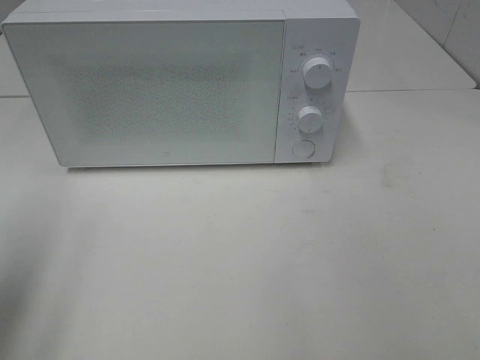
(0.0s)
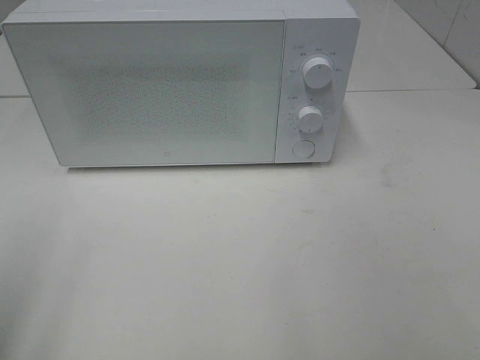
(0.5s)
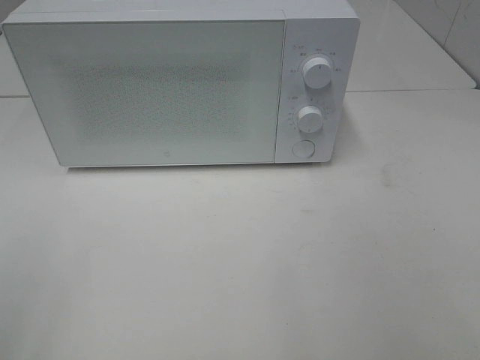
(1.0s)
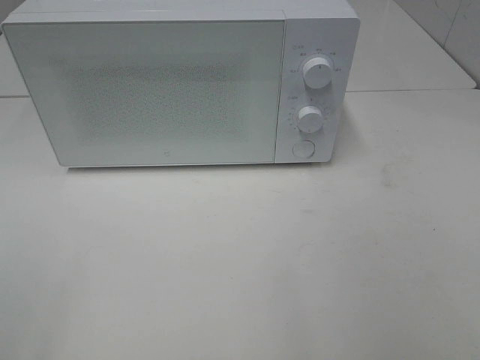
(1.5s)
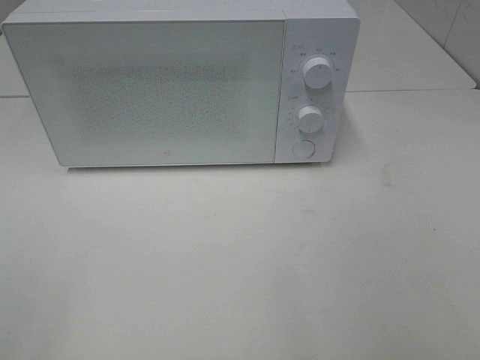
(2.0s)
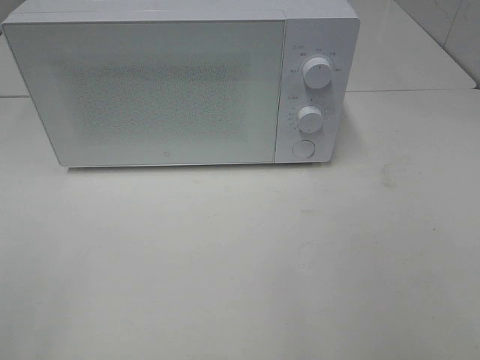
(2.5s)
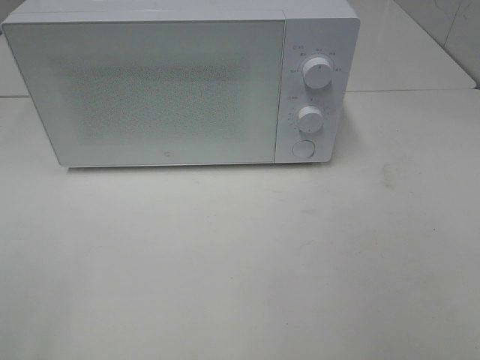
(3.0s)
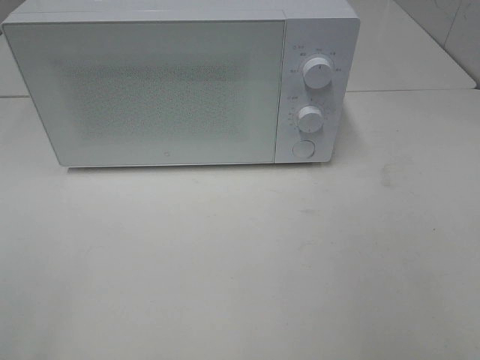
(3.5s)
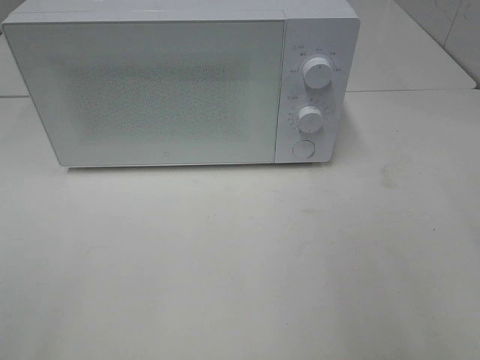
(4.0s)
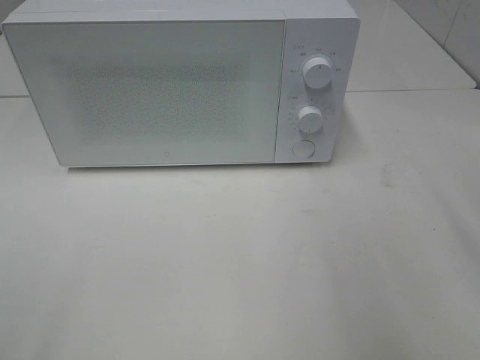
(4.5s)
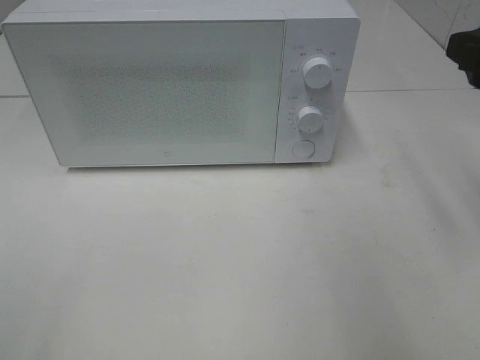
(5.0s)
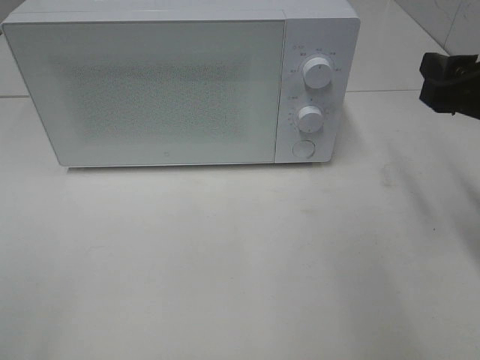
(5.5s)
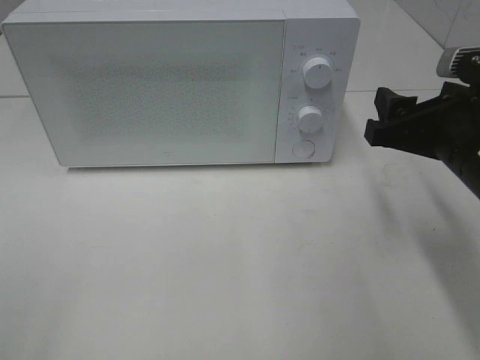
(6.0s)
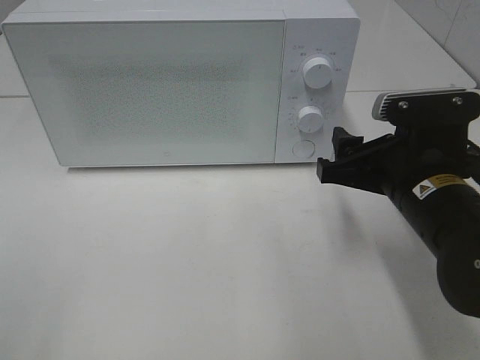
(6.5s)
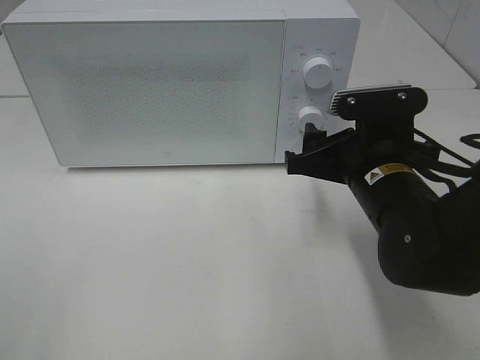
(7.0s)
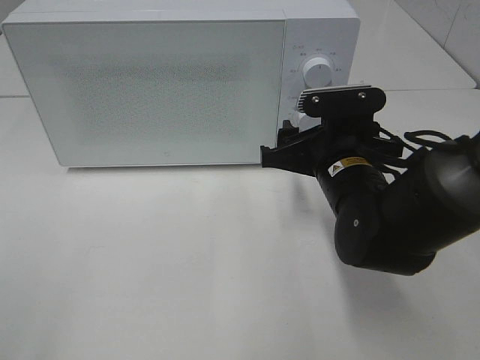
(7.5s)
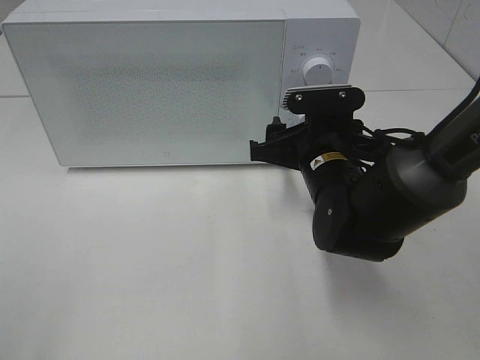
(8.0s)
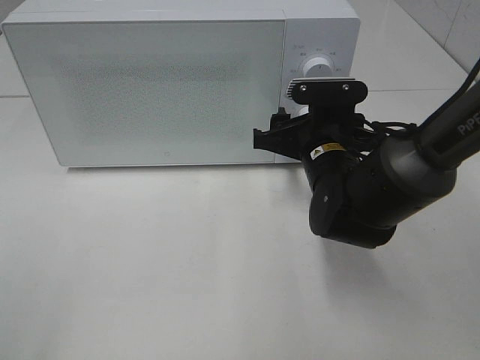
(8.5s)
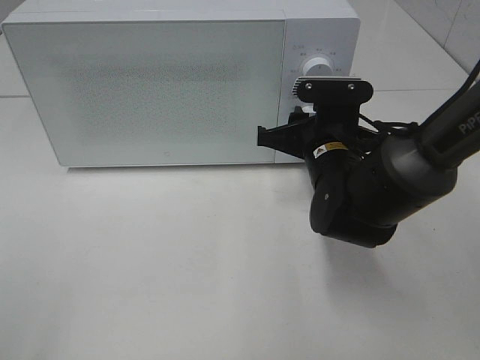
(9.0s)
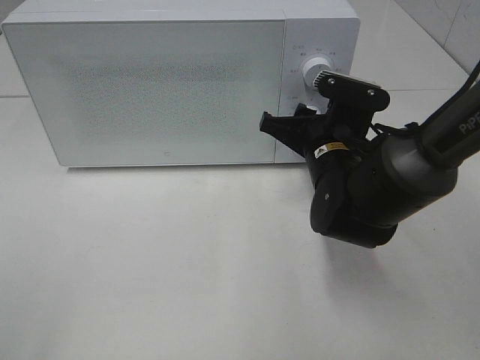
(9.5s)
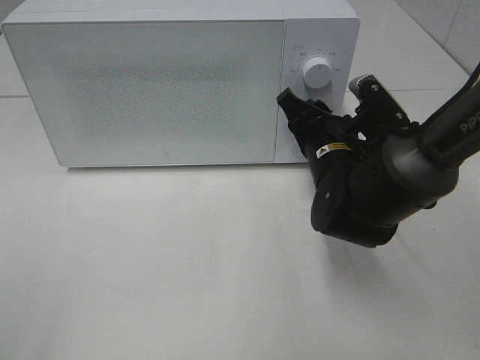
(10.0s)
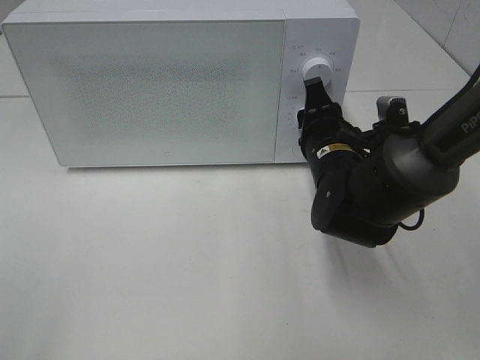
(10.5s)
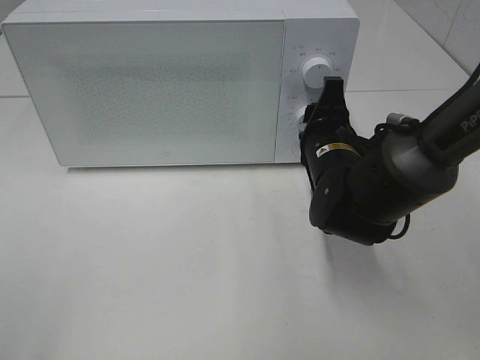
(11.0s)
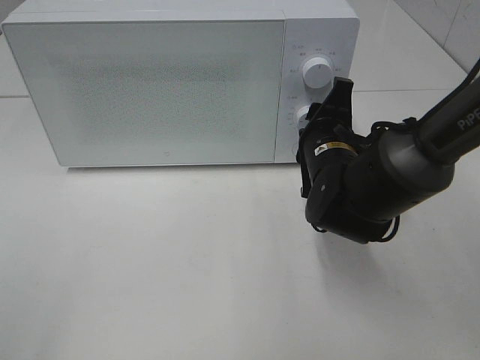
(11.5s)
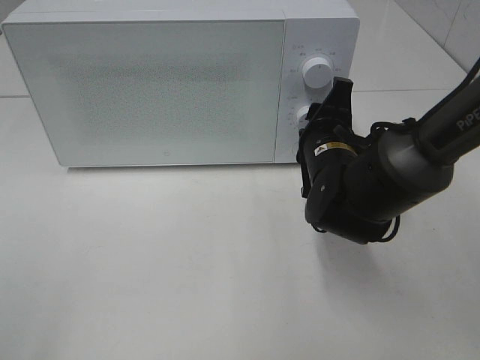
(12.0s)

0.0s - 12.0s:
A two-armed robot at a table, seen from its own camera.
Task of the whole recording: Heat the burger.
0.0s - 2.0s: The left gripper shifts approximately 15 cm backward.
4.0s - 6.0s: The right gripper heads downward, forward and to the left, covering approximately 20 cm.
6.0s - 8.0s: The right gripper travels to the left, downward and forward by about 15 cm.
8.0s - 10.0s: The right gripper closes its fingers.

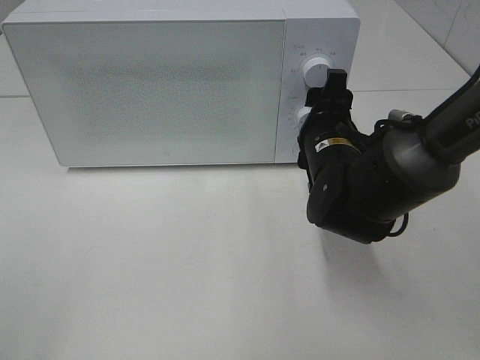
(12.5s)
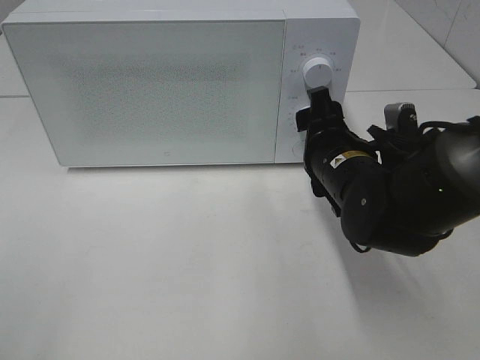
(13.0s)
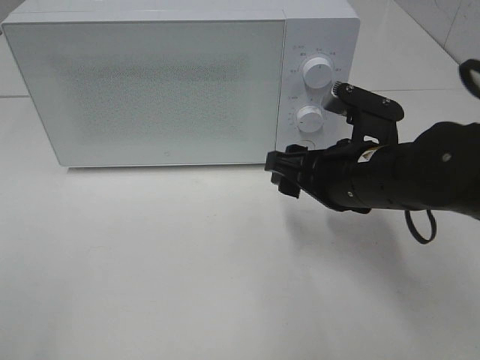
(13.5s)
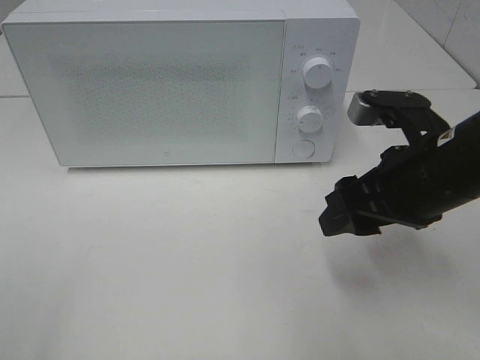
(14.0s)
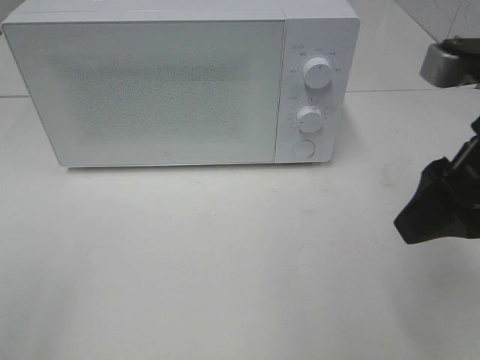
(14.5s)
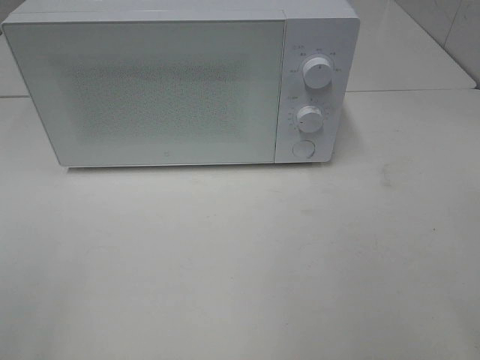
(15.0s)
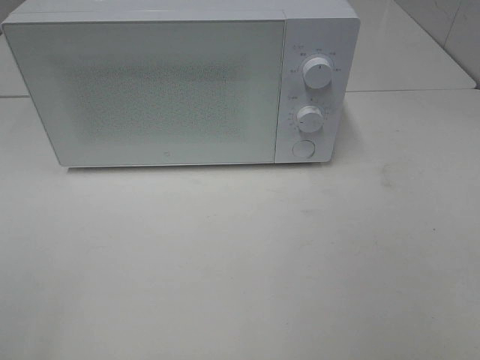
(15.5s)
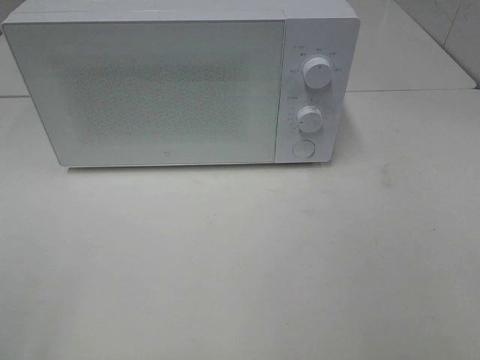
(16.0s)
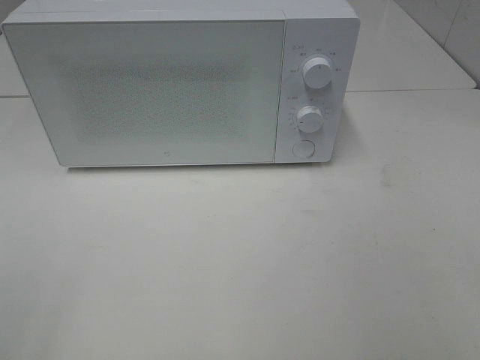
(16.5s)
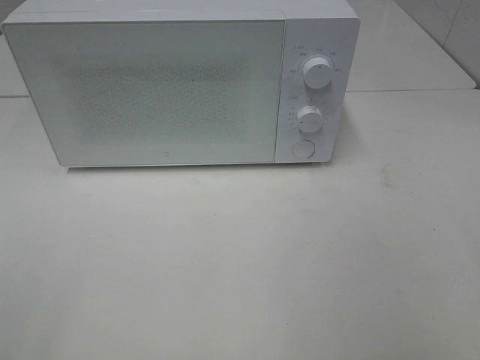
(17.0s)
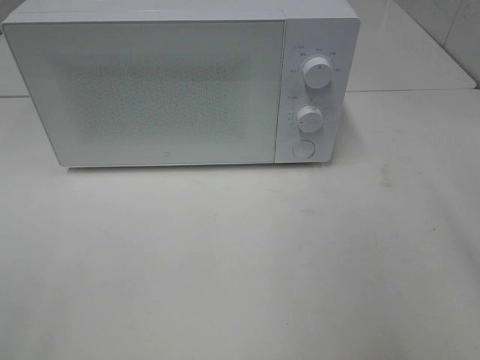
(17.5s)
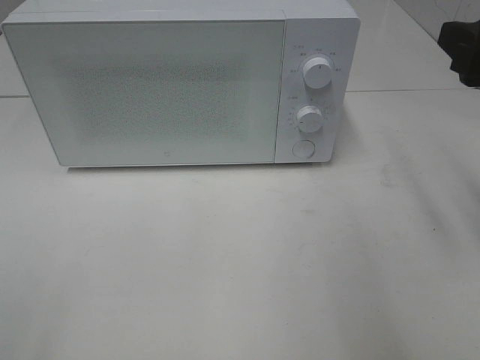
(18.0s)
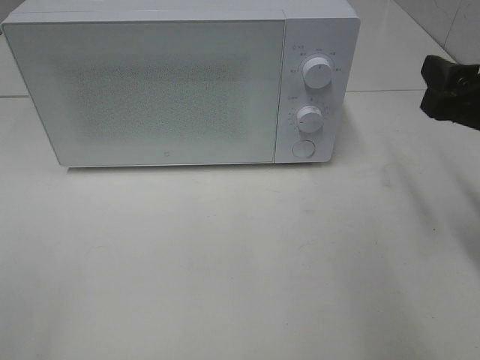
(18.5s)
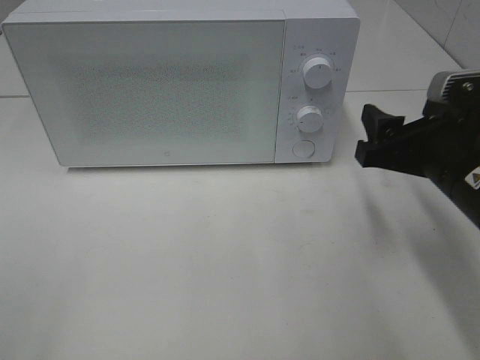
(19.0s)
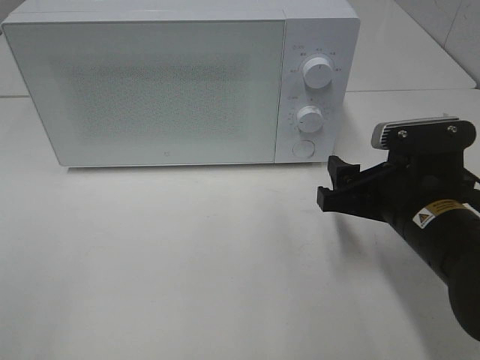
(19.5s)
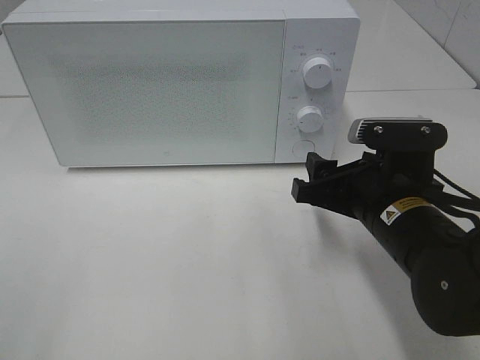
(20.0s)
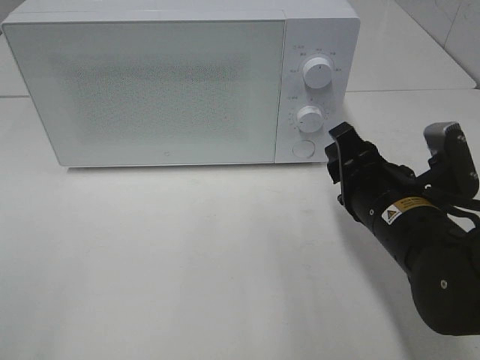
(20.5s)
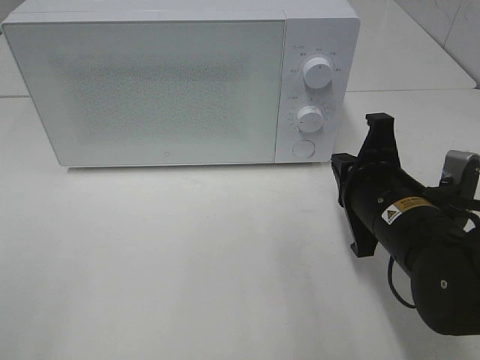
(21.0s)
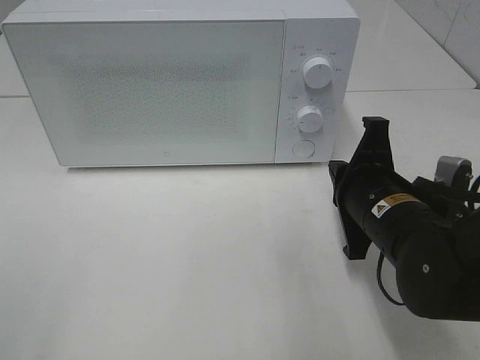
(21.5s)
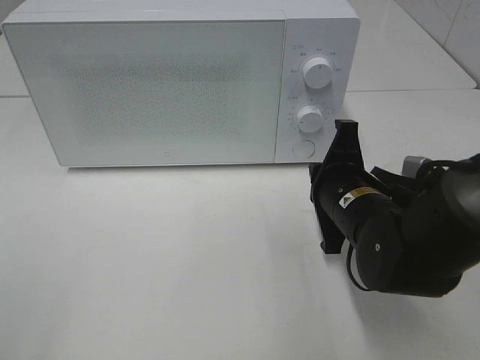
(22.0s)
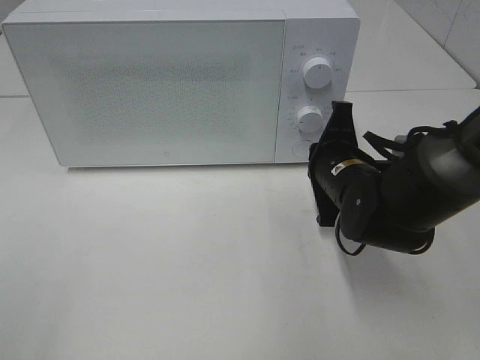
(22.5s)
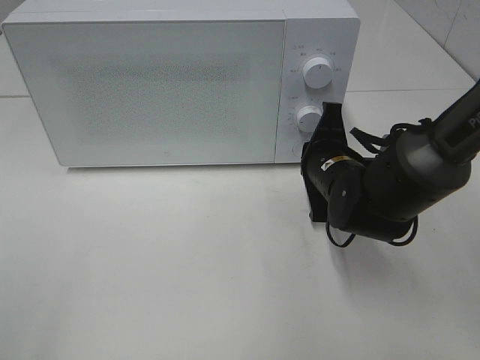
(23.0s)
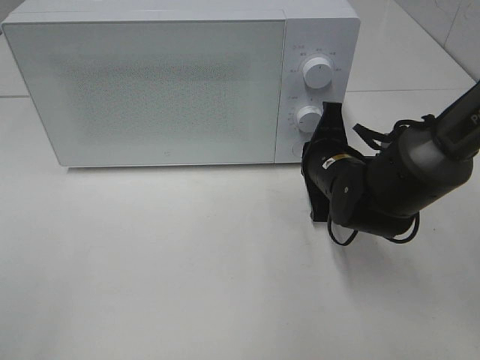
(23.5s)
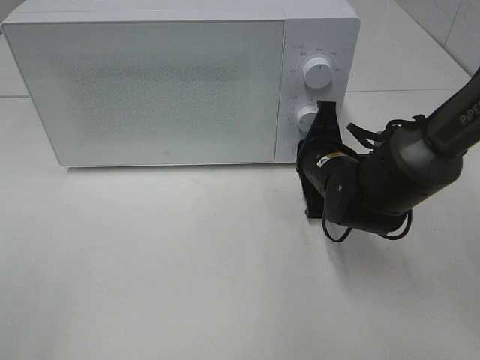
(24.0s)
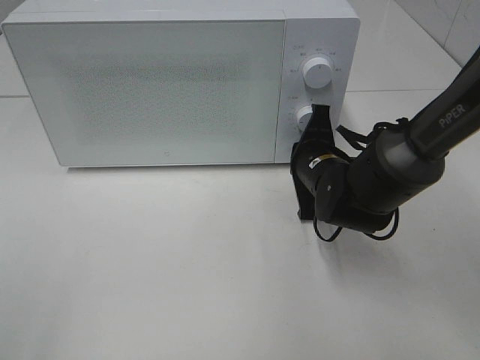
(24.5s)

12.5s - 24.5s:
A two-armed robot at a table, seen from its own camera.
Task of the whole recording: Heat the burger.
12.5s - 14.5s: The right gripper shifts some 25 cm upward, backward and to the right.
14.5s - 16.5s: The right gripper moves backward and to the right, some 20 cm.
16.5s - 18.5s: The right gripper travels forward by roughly 25 cm.
18.5s - 20.5s: The right gripper shifts roughly 15 cm to the left and downward.
20.5s - 22.5s: The right gripper travels forward by approximately 10 cm, and closes.
22.5s - 24.5s: The grippers move only a little.

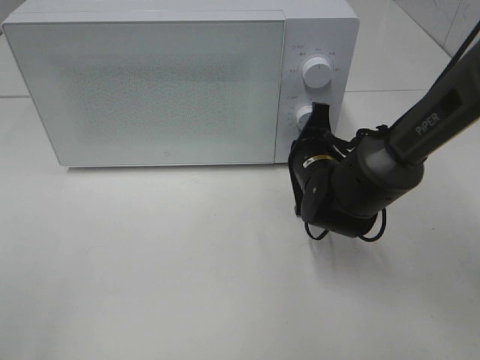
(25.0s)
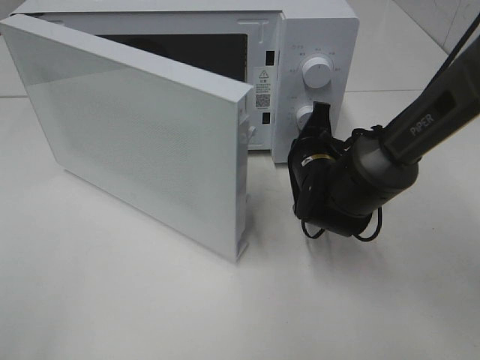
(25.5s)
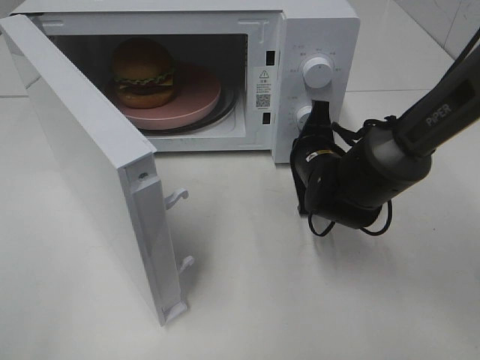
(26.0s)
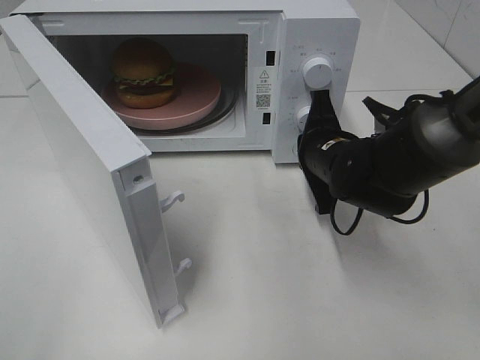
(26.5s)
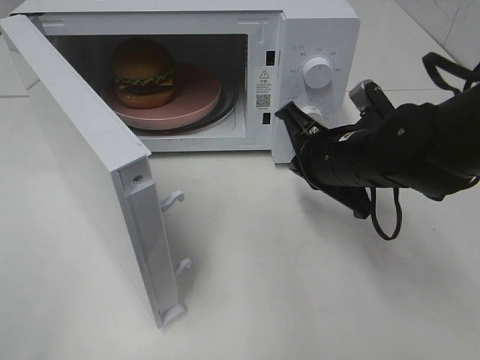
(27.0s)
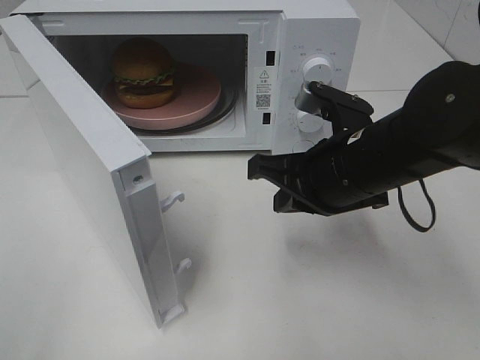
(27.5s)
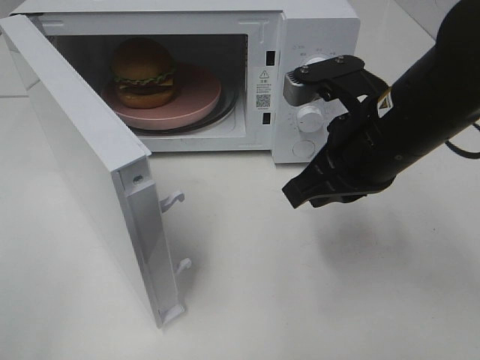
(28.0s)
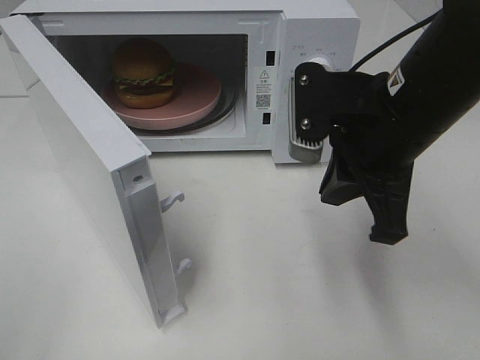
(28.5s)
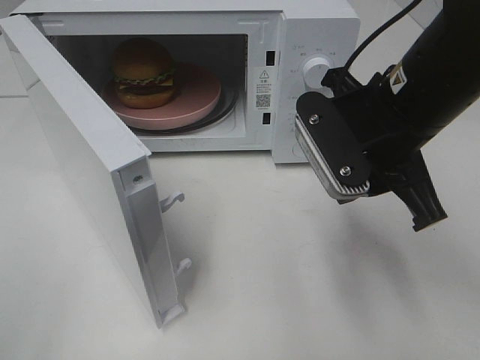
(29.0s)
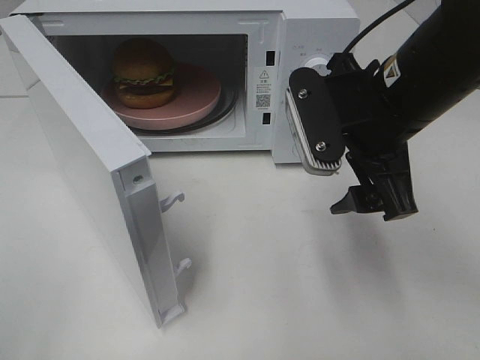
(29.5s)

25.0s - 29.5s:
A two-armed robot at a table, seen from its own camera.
Task of the whole recording: Heat the burger.
25.0s - 27.0s: The right gripper is displaced upward and backward by some 10 cm.
27.0s - 29.5s: The right gripper shifts roughly 10 cm upward, and opens its fingers.
